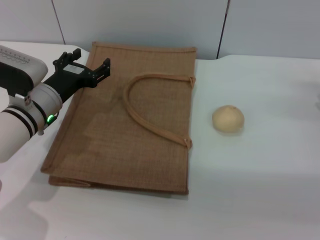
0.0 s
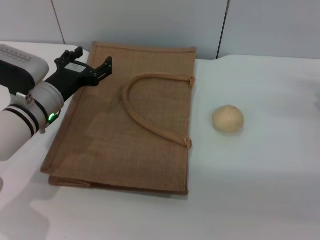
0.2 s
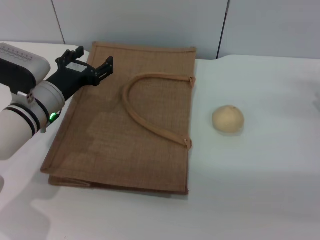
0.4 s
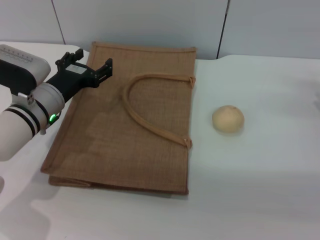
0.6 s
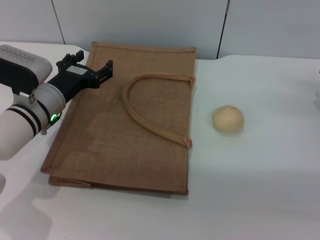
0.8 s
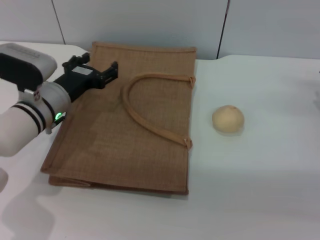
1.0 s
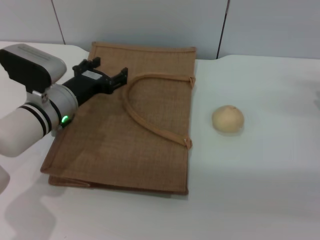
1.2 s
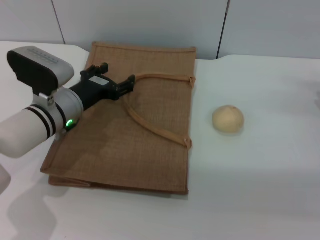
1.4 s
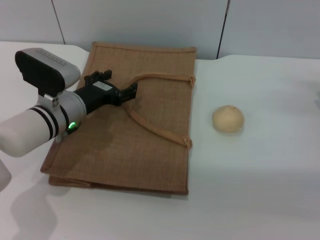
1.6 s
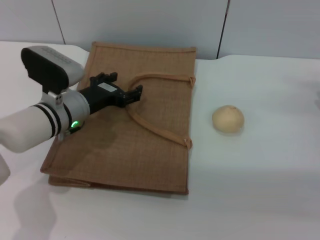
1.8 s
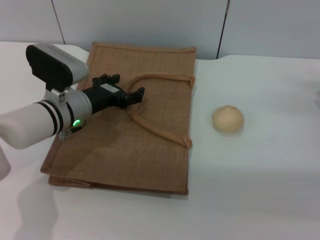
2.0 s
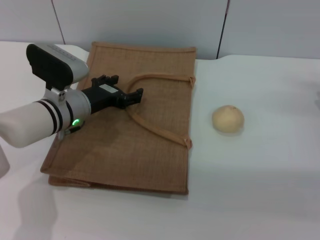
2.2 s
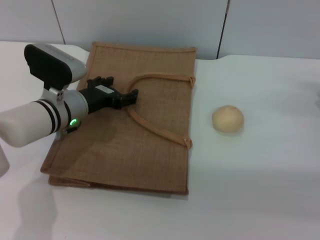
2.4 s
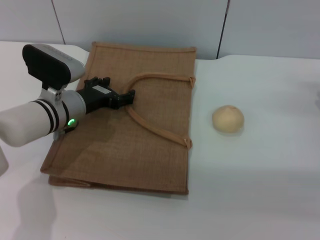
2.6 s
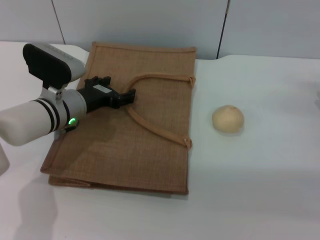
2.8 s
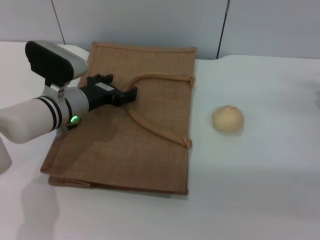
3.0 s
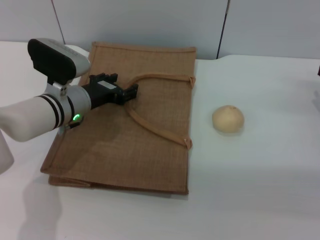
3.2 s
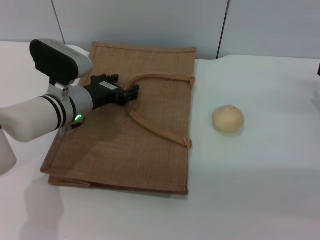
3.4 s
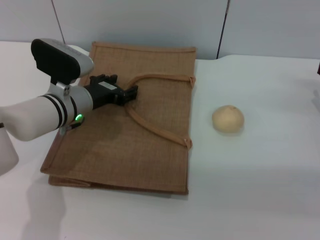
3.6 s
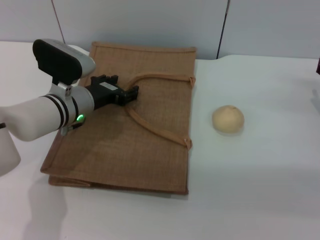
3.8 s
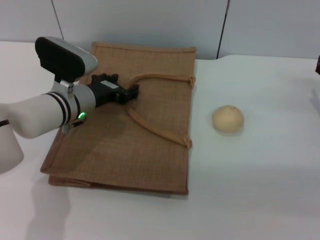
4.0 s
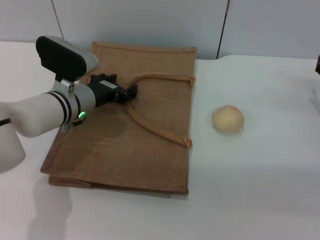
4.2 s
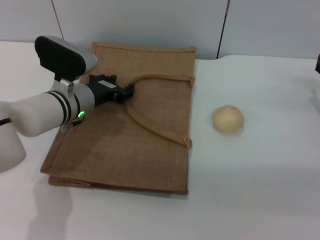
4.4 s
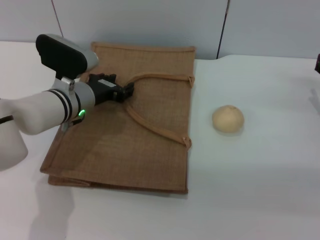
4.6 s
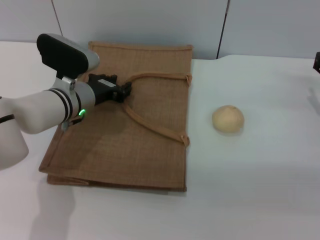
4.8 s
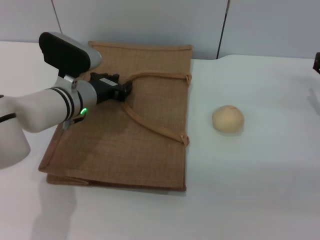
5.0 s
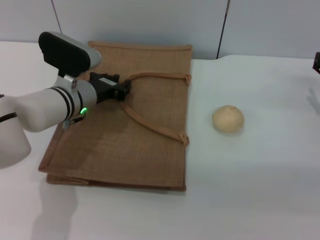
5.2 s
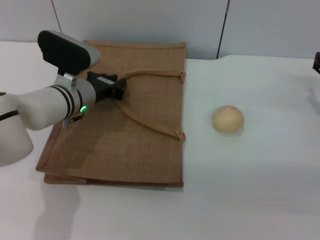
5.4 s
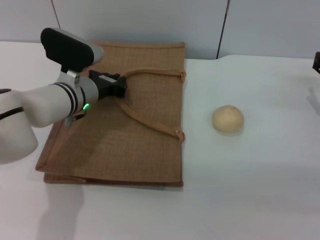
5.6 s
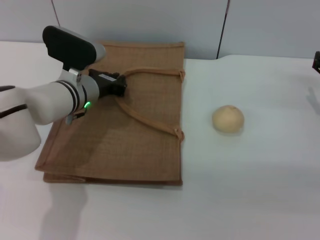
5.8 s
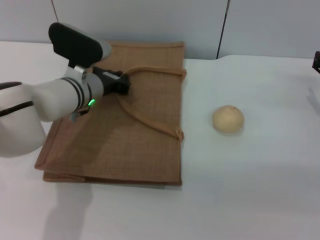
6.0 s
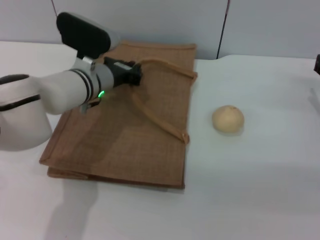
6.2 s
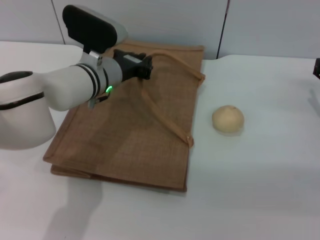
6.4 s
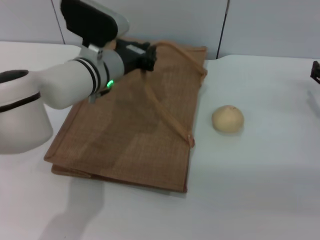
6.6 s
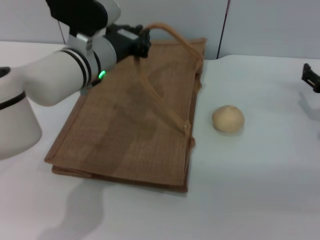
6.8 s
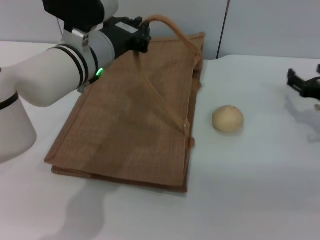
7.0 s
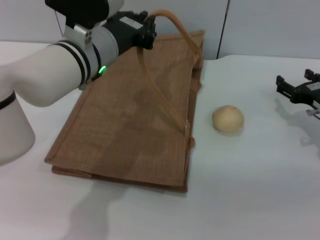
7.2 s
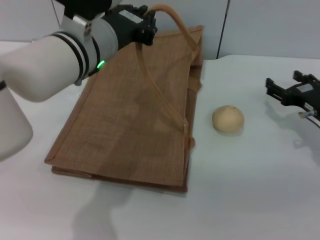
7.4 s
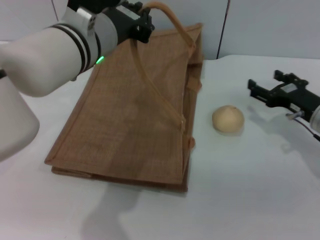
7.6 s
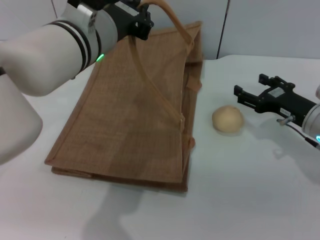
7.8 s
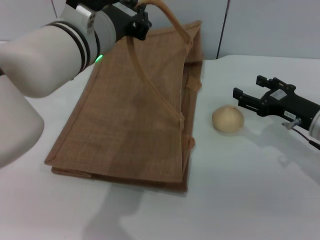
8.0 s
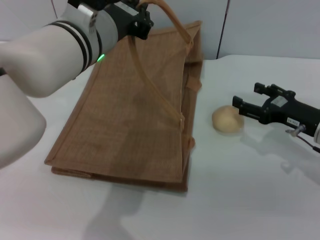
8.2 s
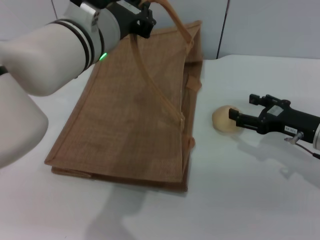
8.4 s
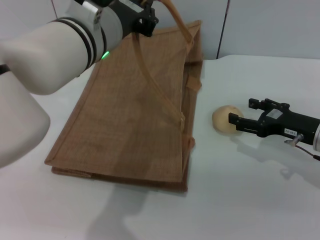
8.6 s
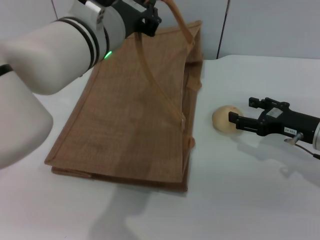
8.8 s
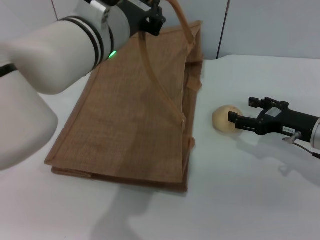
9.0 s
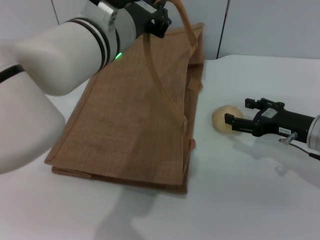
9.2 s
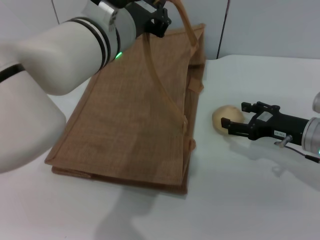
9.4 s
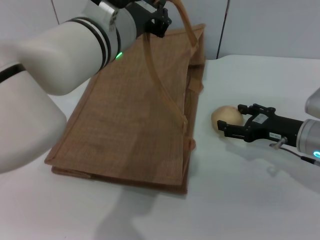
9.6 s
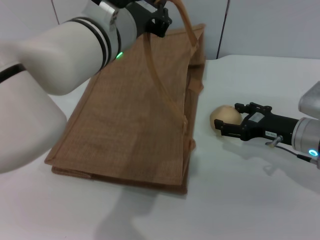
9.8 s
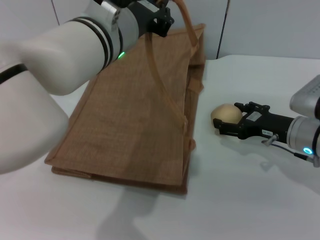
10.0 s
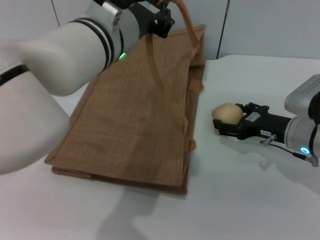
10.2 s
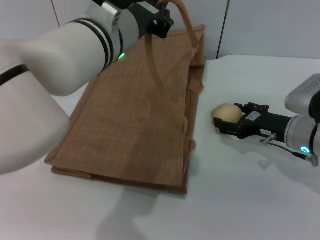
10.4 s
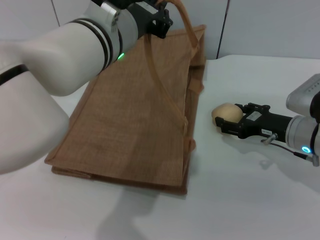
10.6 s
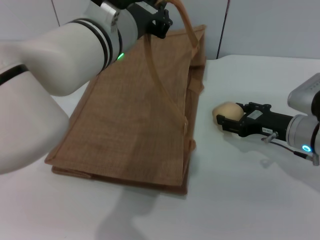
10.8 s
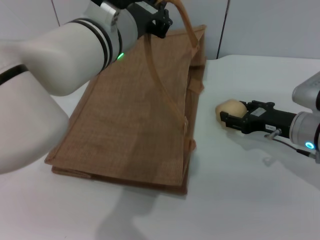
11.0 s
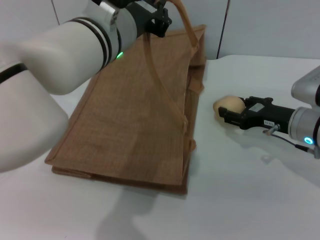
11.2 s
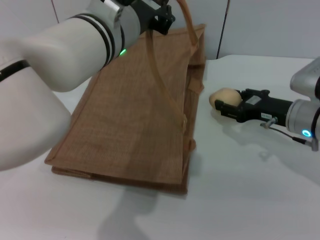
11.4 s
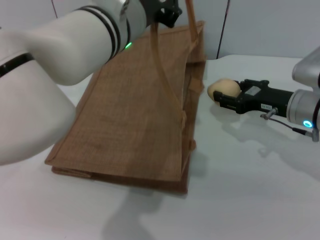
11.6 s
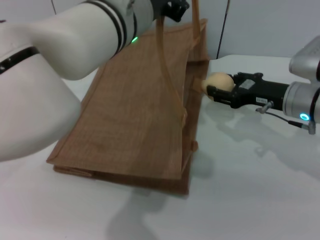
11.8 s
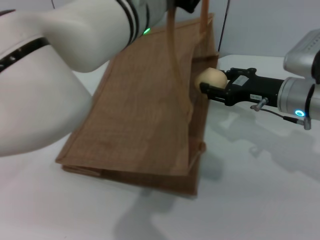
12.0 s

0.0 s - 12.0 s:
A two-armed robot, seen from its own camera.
Task of the whole recording: pick up the egg yolk pastry from the table and place it in the brown handbag.
Step, 0.0 s - 6.6 s: Lift the woven bag with the left gripper to open it.
Step, 6.8 s - 11.4 s: Pick up the egg yolk pastry with the right gripper.
0.0 s - 3.0 s: There are only small adjustments of the grippers.
3.0 s - 4.4 s: The grippers make only small movements.
4.4 s - 6.0 s: The left gripper closes its fingers.
6.0 s - 7.6 s: The right gripper travels to the left by approximately 5 cm. Meanwhile the left gripper moves upward and backward, roughly 15 cm.
9.0 s - 10.4 s: The grippers make only small movements.
10.4 s - 12.0 s: The right gripper shifts approximately 5 cm upward, and closes its fingers.

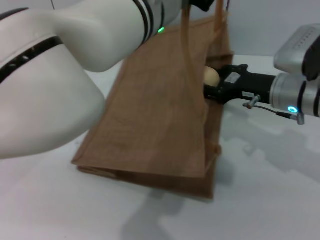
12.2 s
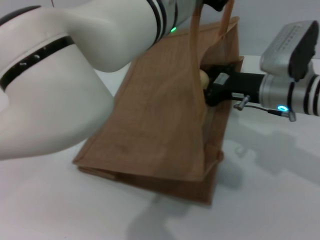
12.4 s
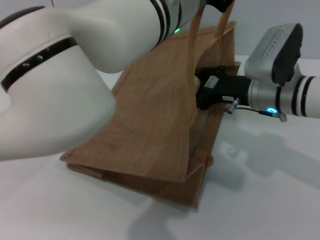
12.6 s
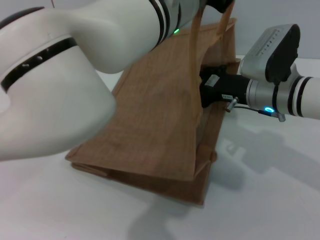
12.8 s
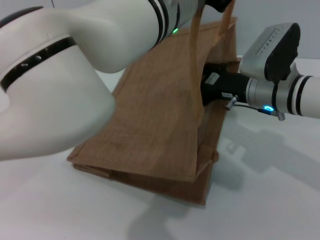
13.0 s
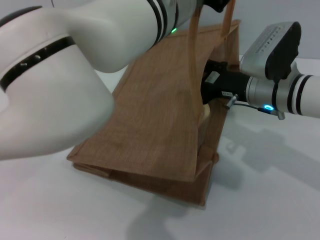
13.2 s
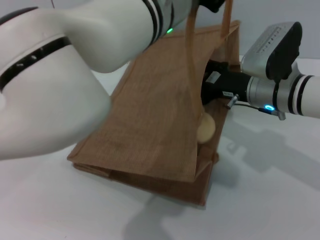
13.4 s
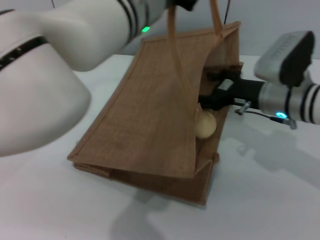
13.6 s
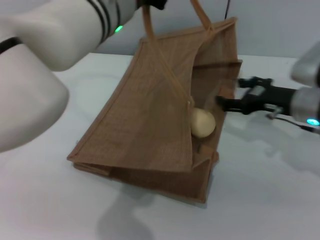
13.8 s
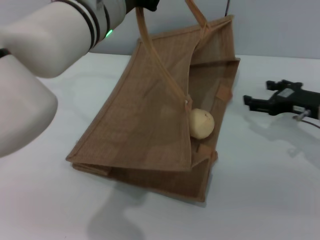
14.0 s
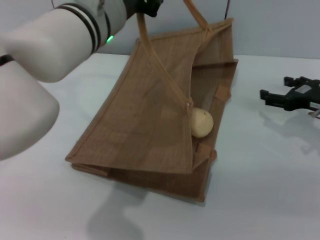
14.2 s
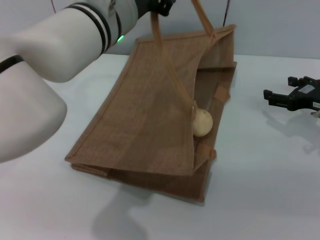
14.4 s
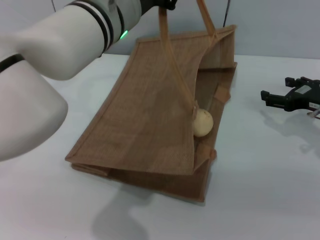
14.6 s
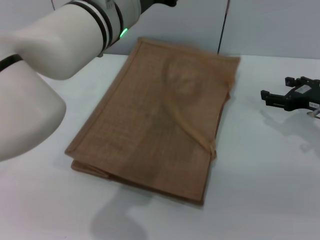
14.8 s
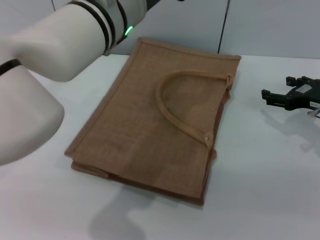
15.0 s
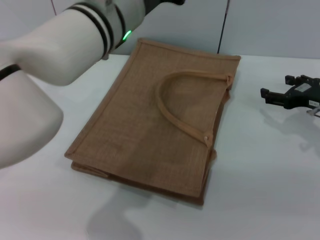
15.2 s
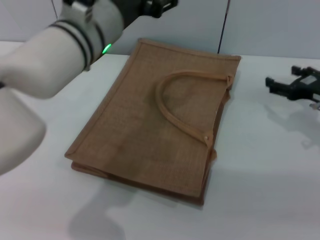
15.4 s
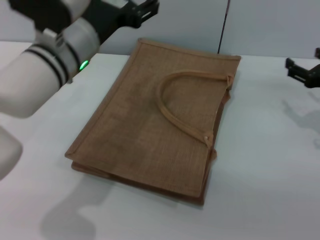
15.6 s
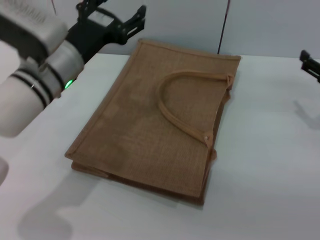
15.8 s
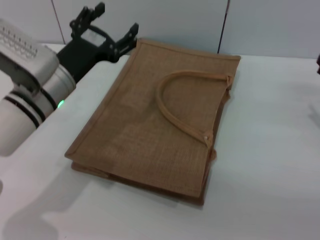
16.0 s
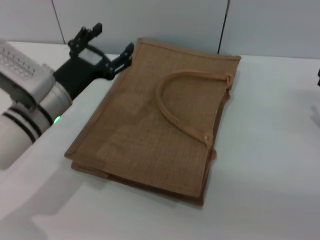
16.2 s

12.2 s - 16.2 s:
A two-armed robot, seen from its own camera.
Task of the whole recording: pick up the egg yolk pastry from the table and place it in the brown handbag.
Step, 12.2 s - 14.0 s: Place the egg yolk pastry into the woven bag with the right gripper.
Step, 14.2 s - 15.0 s: Lower the woven bag with the left gripper to close it.
12.2 s - 13.6 s: The right gripper opens its fingers.
13.6 s - 14.8 s: The right gripper travels to the right by approximately 10 cm. The left gripper opens up.
14.8 s - 16.2 s: The right gripper shifts about 5 cm backward; the left gripper shifts approximately 20 cm downward and to the left, and opens its fingers.
